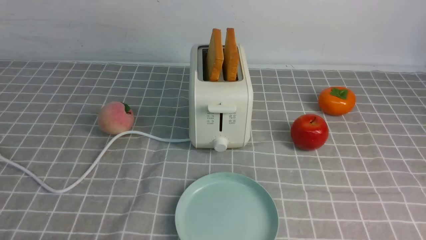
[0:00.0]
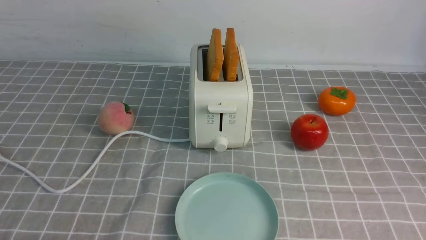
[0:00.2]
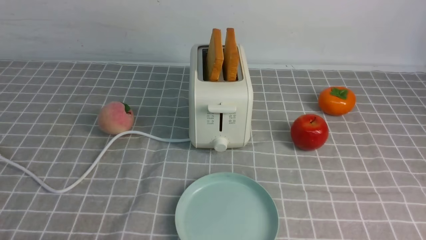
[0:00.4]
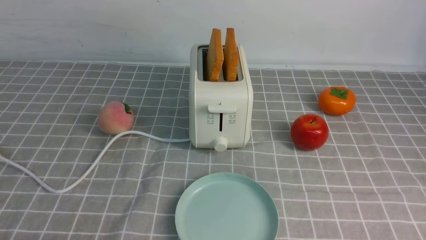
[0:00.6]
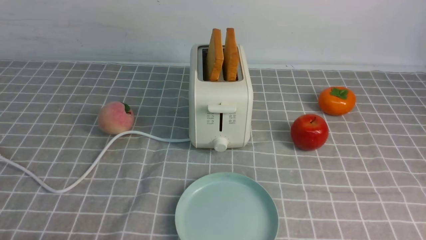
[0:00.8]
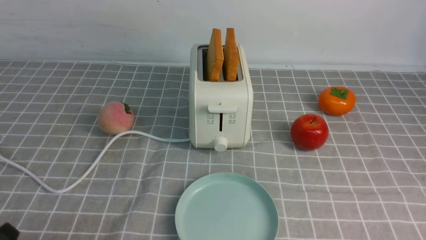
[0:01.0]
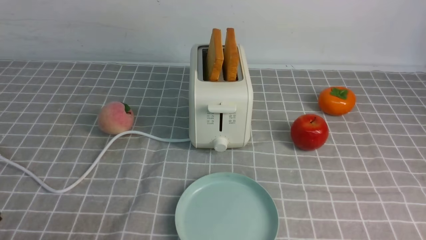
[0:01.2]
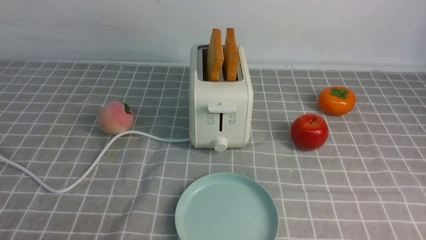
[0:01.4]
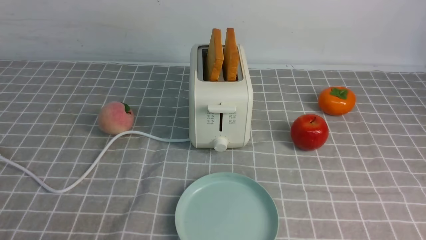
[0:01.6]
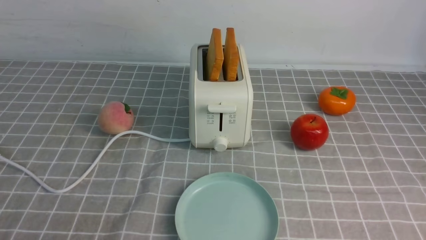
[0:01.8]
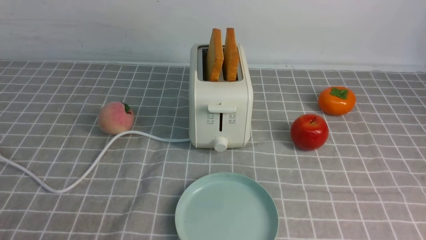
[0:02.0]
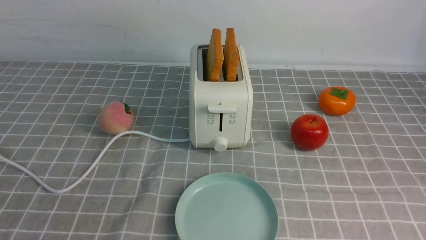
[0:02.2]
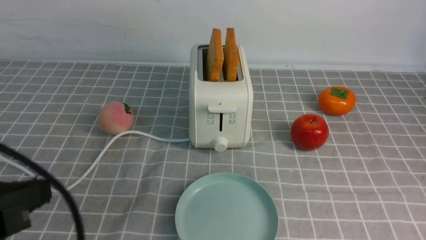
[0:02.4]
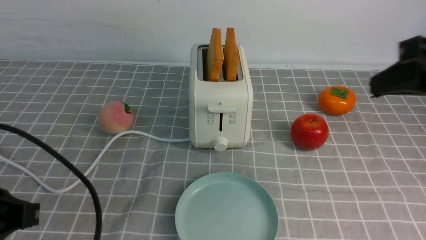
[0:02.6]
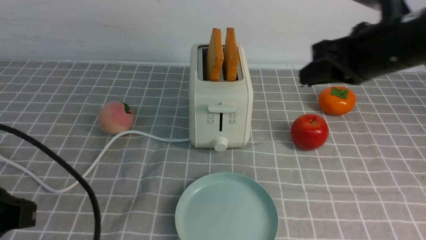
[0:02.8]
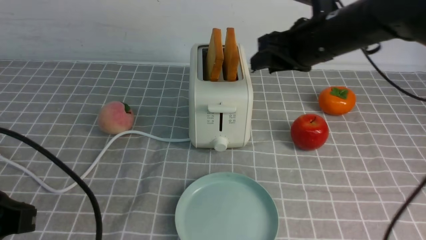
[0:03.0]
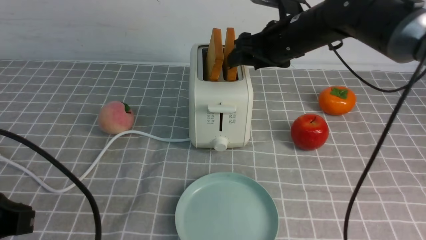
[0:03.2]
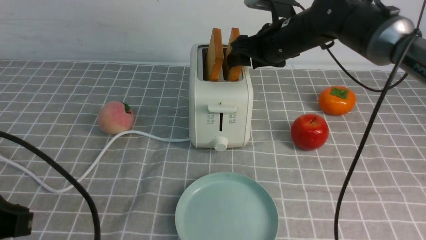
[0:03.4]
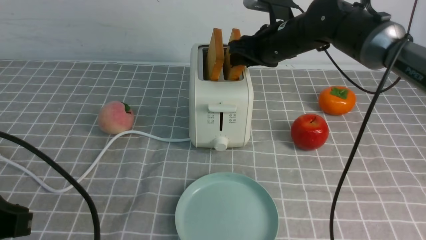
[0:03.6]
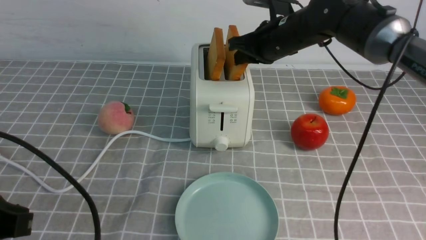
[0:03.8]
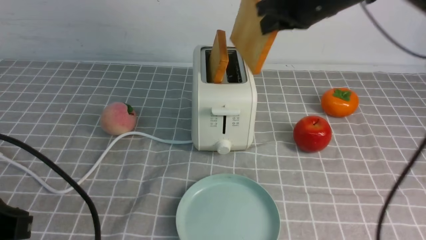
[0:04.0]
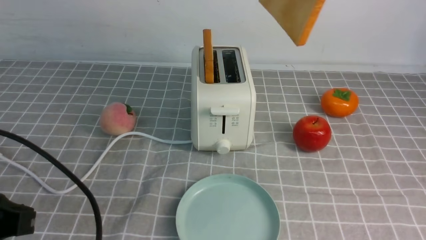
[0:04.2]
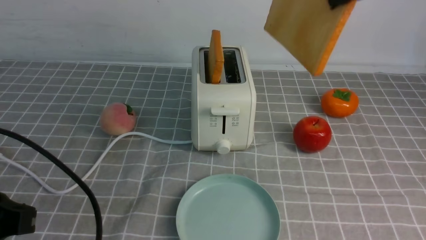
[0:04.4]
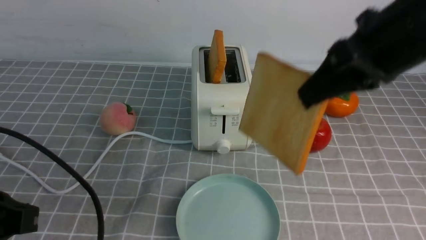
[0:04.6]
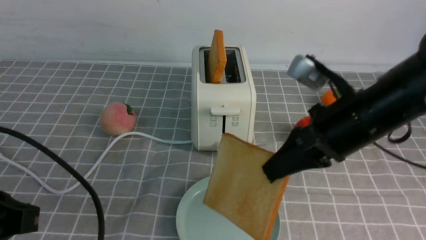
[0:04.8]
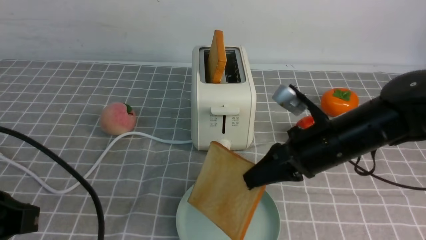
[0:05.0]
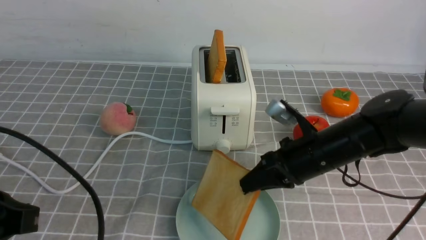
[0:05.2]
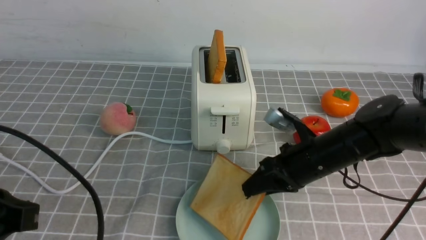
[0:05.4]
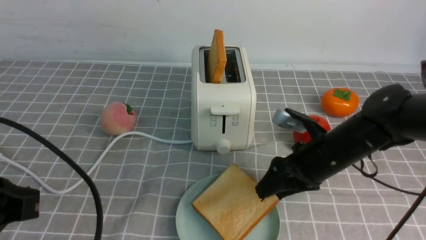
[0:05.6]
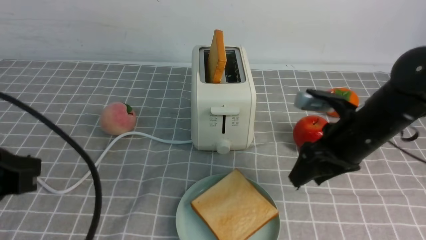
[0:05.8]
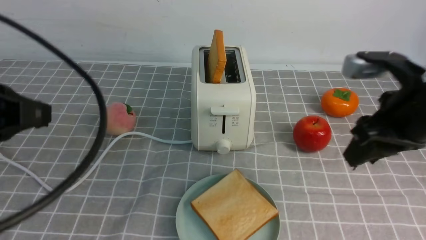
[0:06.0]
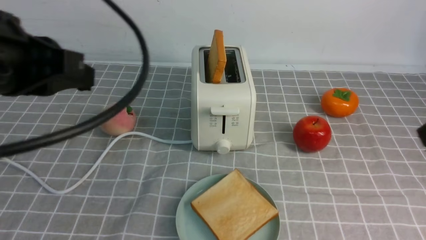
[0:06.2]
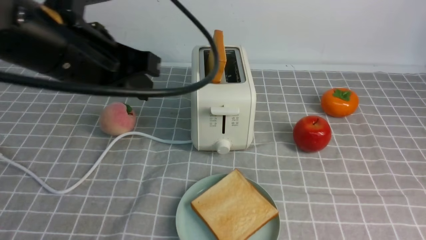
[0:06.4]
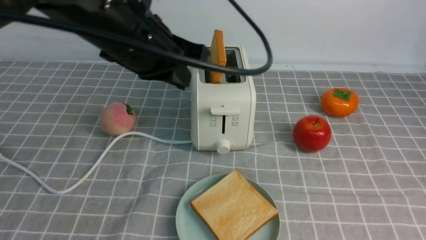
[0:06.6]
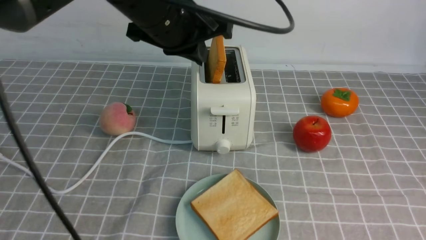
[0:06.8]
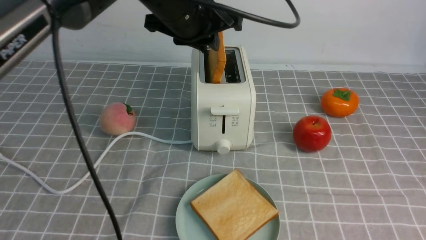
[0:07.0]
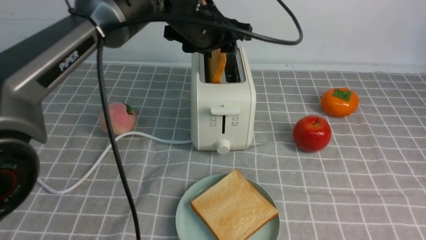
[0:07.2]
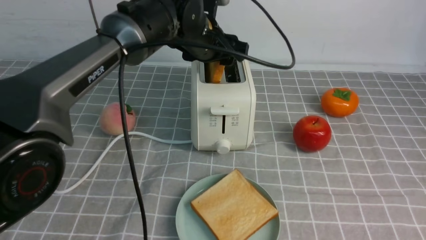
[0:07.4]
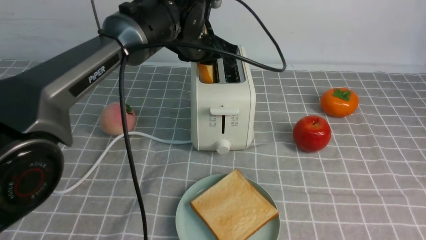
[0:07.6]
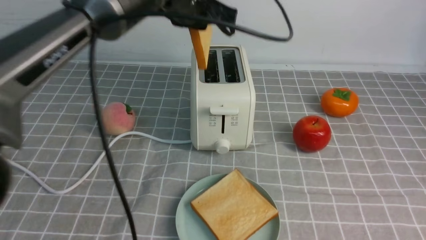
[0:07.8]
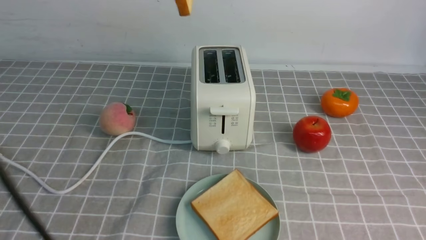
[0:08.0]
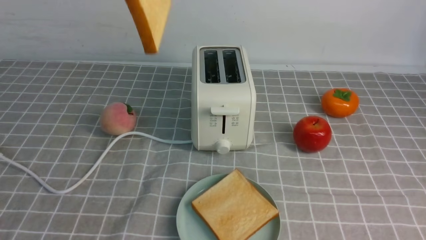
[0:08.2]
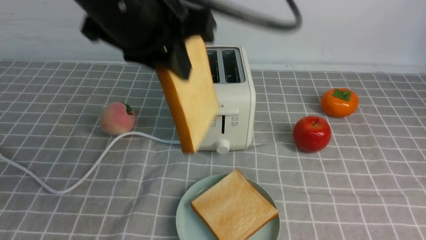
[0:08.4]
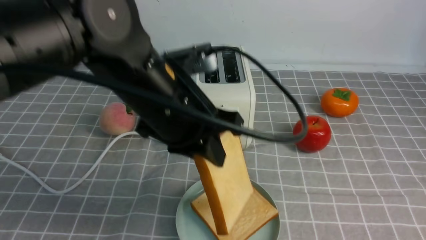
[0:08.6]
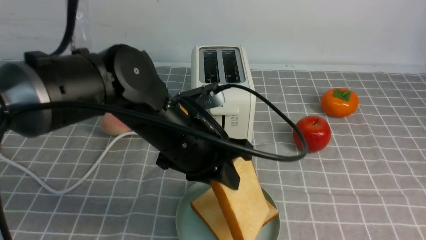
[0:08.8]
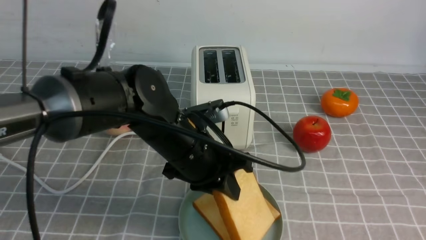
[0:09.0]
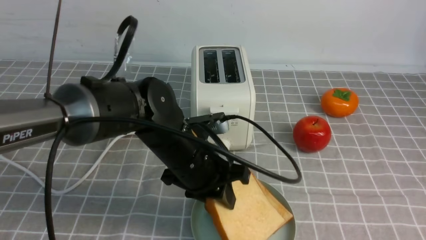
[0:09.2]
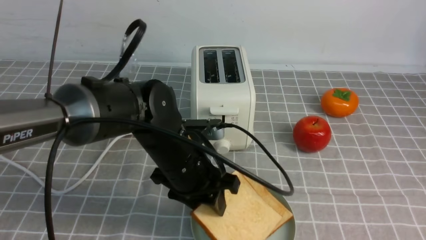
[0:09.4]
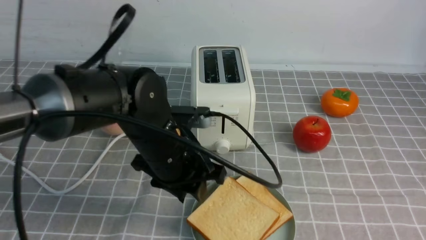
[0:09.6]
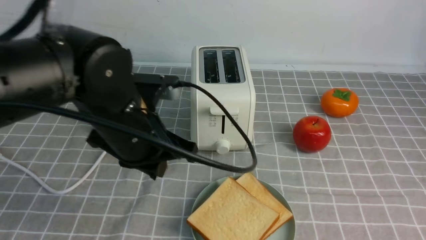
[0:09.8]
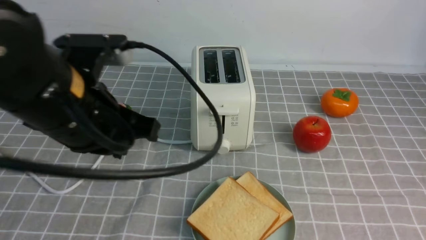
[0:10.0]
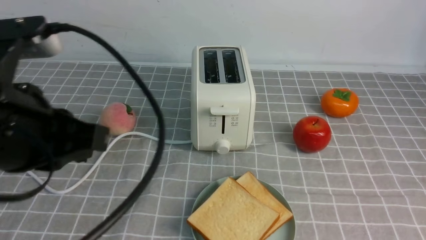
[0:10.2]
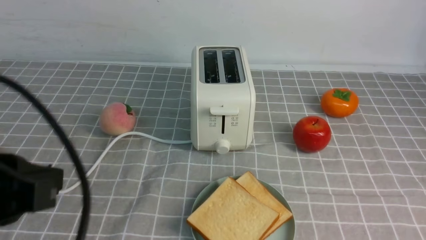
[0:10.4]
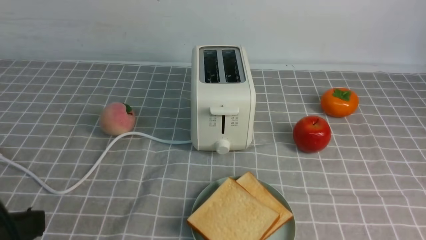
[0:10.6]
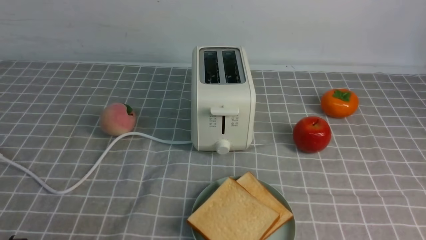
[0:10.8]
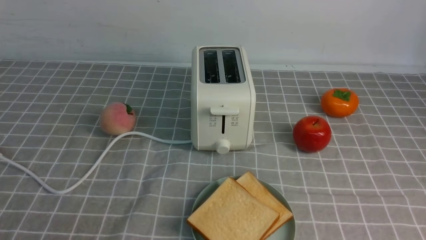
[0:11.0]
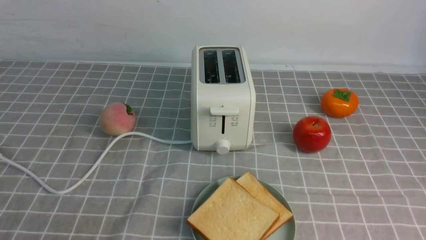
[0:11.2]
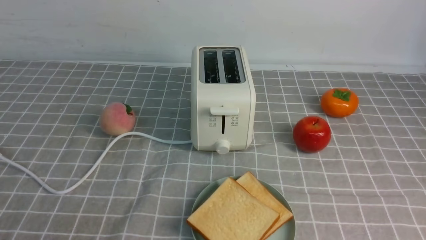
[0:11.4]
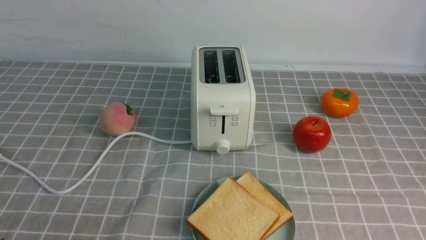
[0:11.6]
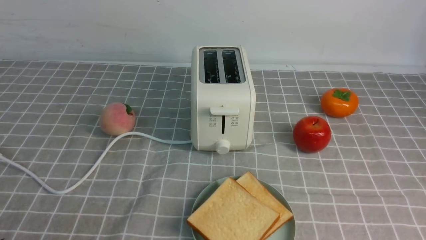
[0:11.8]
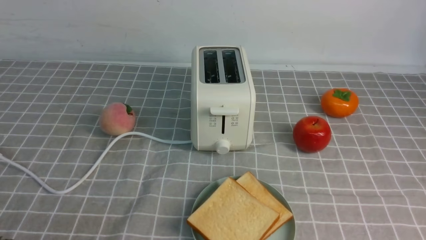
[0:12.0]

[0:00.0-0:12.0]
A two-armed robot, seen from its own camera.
Task of the whole recording: take toasted bread from bread machine on grey coffee table place on plate.
Step, 0:00.0 to 0:04.0: use the right arm to take out a slice of bread.
Step, 0:04.2 to 0:05.8: use the right arm to put a slice of bread into the plate.
Step, 0:06.0 to 0:07.8: use the left arm to take out a slice of bread.
Step, 0:08.0 to 0:09.8: use the left arm to put a slice of bread into the empty plate.
0:01.6 to 0:03.0: The left gripper goes about 10 cm upward and forward. Meanwhile the right gripper travels forward, to the left and upward by about 40 cm, and closes and opens again.
0:03.0 to 0:04.4: The right gripper is displaced upward and backward by some 15 cm, and closes.
0:04.4 to 0:06.0: The left gripper moves upward, about 10 cm, while the right gripper travels downward by roughly 10 cm, and opens up.
0:06.0 to 0:07.6: The left gripper moves forward and to the right, some 30 cm, and opens its fingers; the right gripper shifts approximately 20 cm backward, and closes.
0:07.6 to 0:09.0: The left gripper heads backward and downward, covering about 20 cm.
0:09.0 to 0:10.4: The left gripper travels backward, to the left and upward by roughly 25 cm, and closes.
0:10.4 to 0:12.0: The left gripper goes about 10 cm downward and backward.

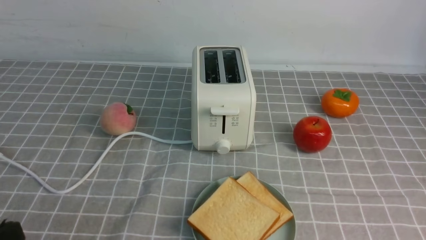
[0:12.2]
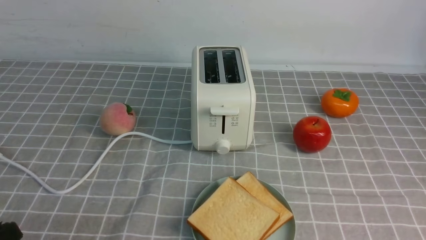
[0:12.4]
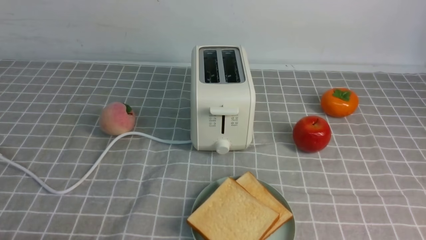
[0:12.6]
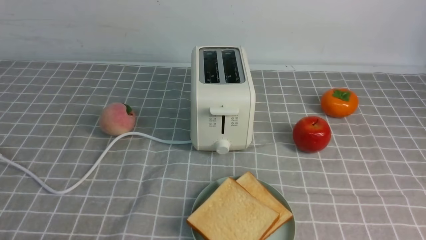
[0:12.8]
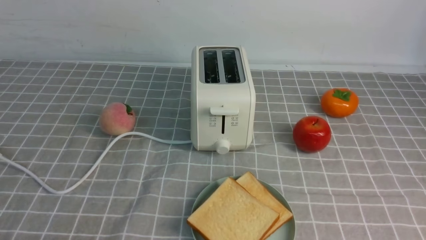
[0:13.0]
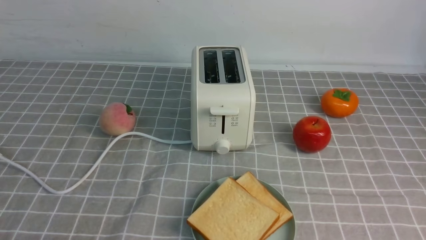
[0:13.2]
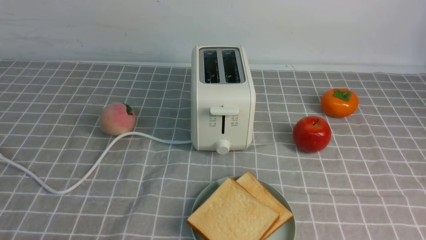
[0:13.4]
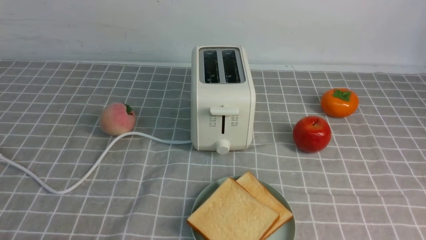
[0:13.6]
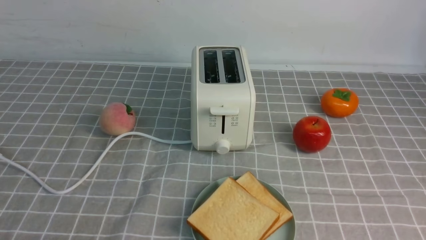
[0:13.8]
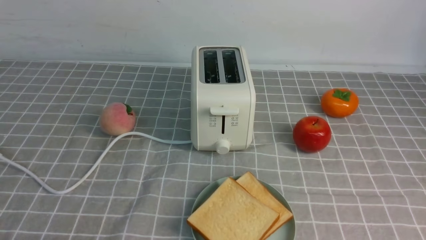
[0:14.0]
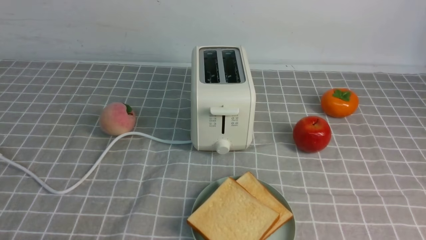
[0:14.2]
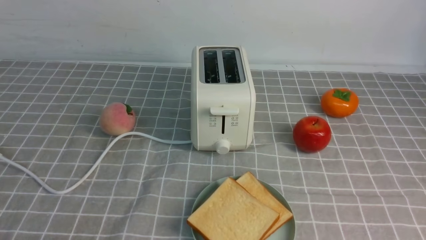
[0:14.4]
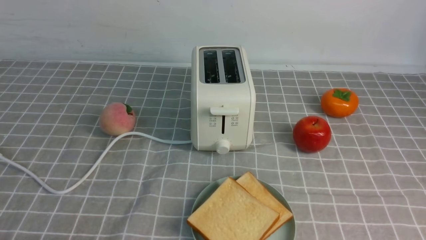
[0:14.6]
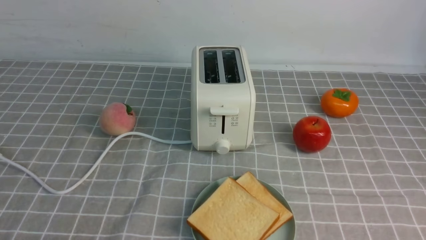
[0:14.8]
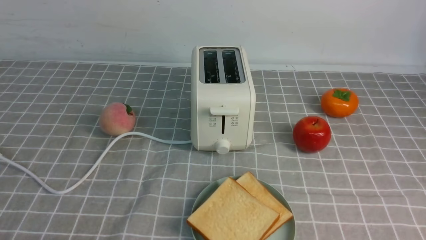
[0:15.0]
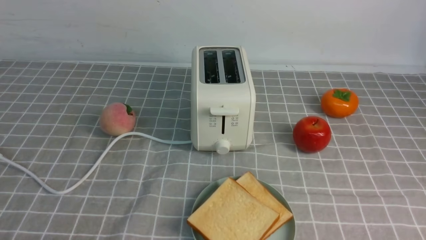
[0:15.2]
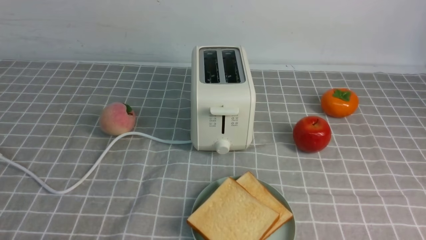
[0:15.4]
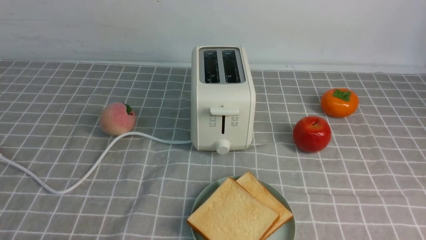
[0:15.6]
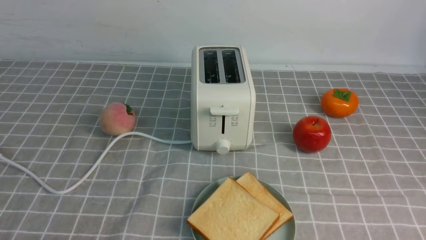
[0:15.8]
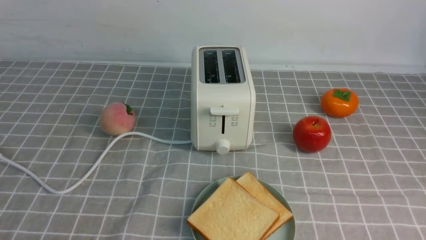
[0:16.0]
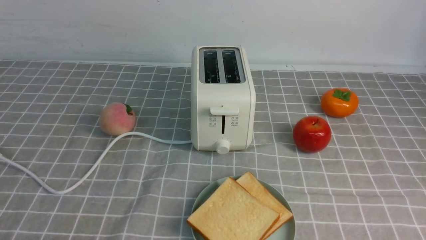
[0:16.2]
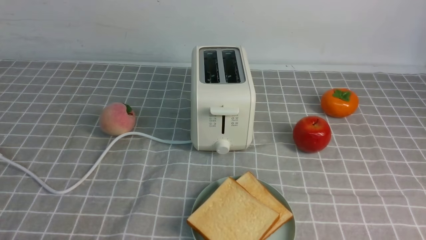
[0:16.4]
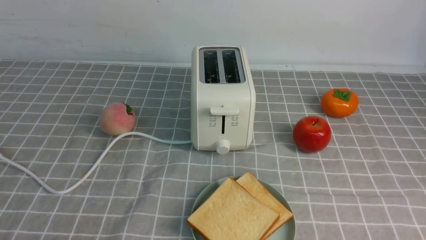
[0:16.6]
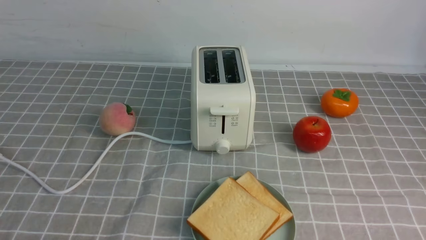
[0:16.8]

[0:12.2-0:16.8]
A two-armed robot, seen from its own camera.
Task of the whole recording: take toasted bread from bread machine on grey coffee table place on plate.
0:15.2 to 0:16.8: Both grippers stay about where they are.
